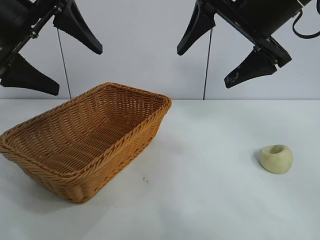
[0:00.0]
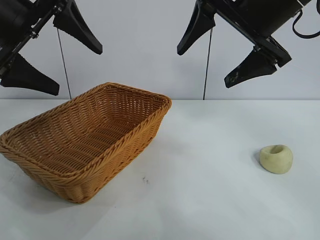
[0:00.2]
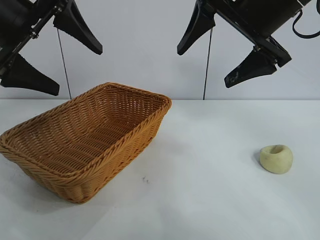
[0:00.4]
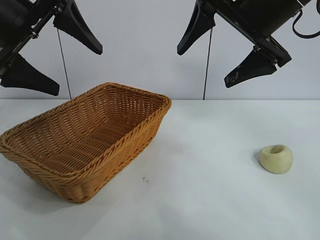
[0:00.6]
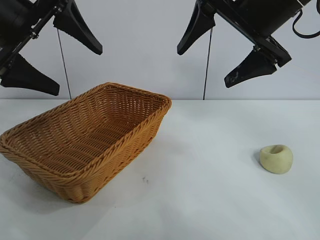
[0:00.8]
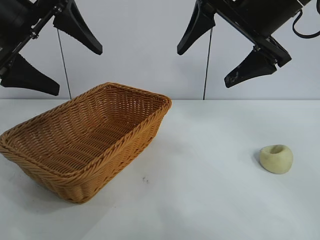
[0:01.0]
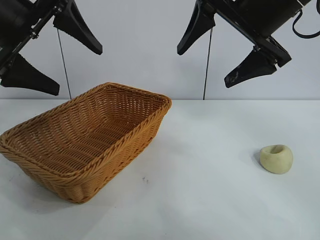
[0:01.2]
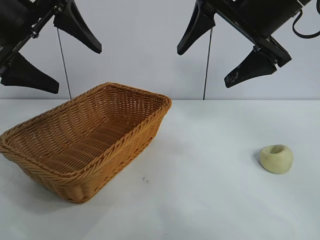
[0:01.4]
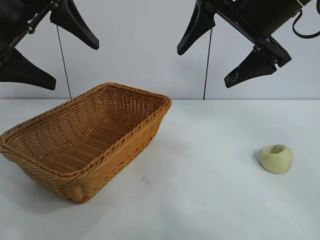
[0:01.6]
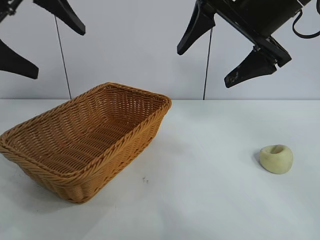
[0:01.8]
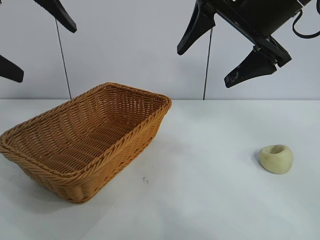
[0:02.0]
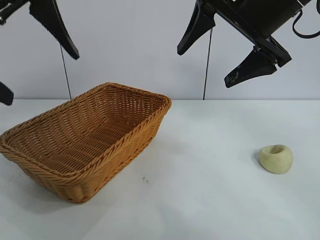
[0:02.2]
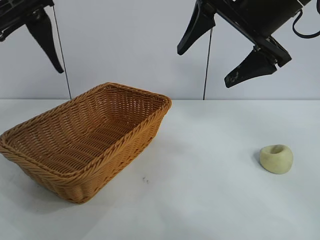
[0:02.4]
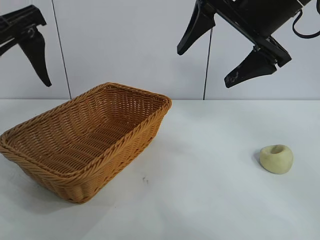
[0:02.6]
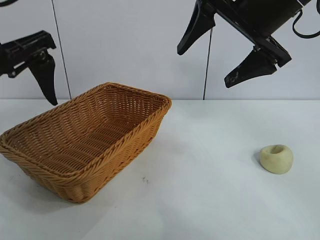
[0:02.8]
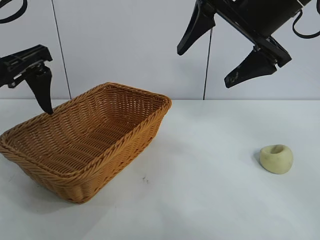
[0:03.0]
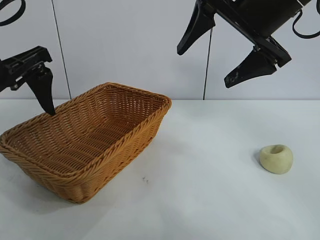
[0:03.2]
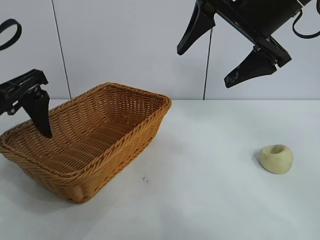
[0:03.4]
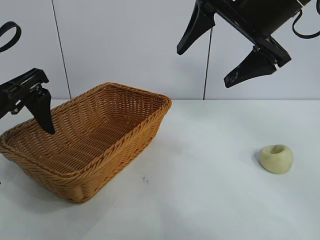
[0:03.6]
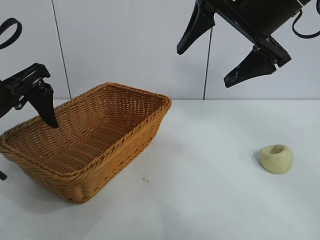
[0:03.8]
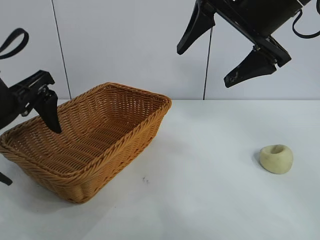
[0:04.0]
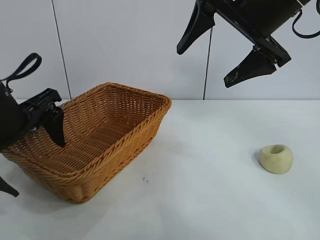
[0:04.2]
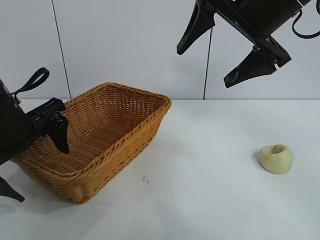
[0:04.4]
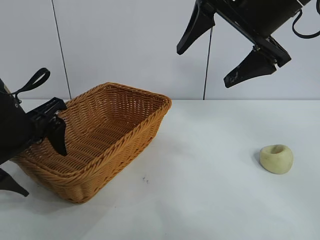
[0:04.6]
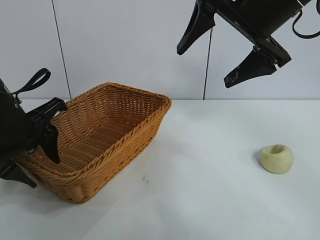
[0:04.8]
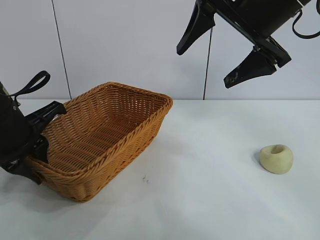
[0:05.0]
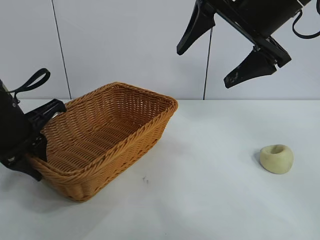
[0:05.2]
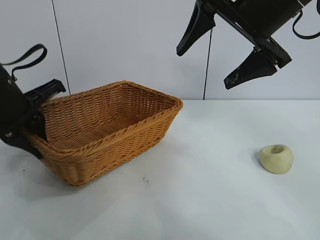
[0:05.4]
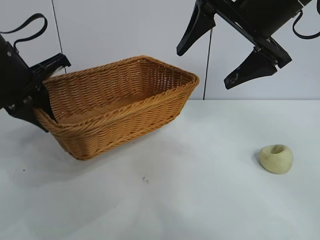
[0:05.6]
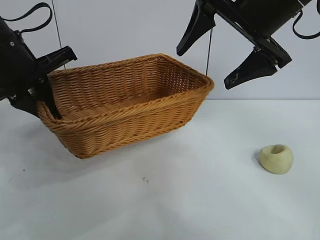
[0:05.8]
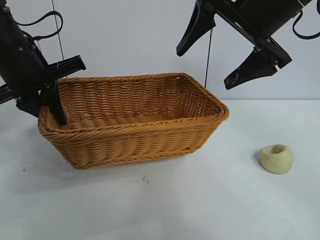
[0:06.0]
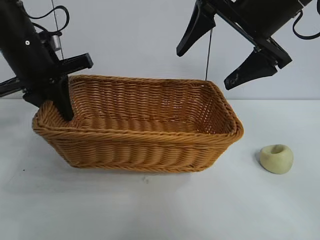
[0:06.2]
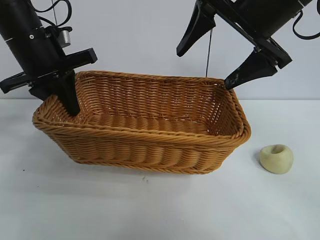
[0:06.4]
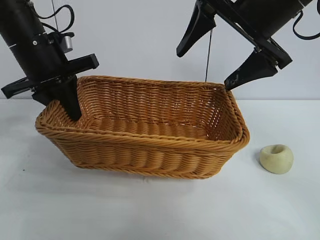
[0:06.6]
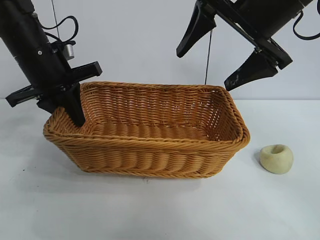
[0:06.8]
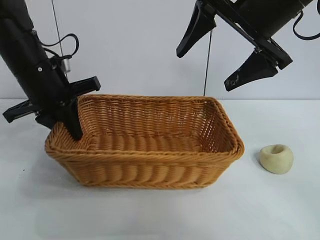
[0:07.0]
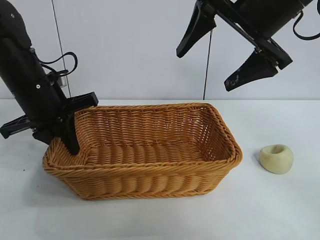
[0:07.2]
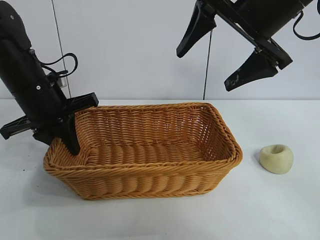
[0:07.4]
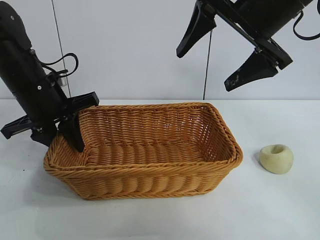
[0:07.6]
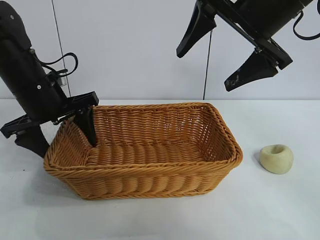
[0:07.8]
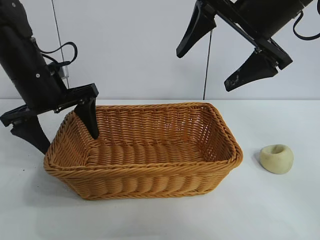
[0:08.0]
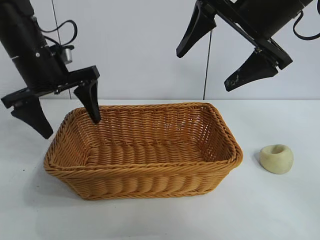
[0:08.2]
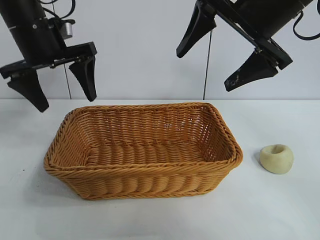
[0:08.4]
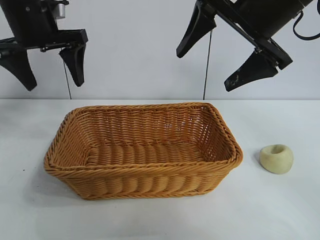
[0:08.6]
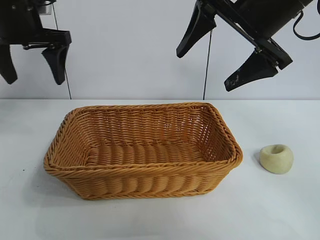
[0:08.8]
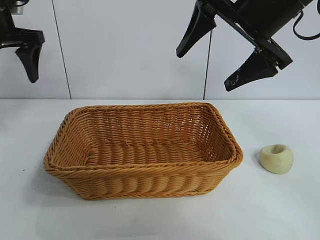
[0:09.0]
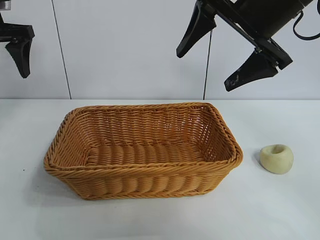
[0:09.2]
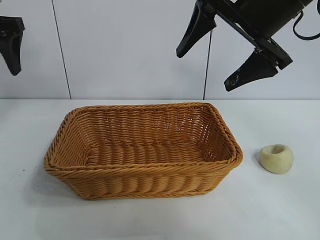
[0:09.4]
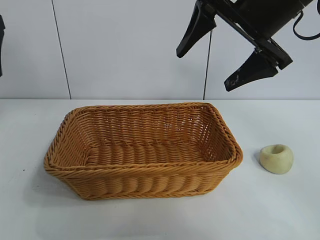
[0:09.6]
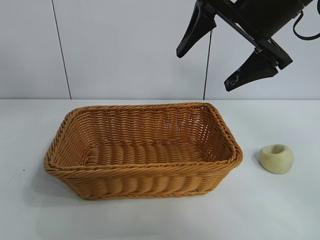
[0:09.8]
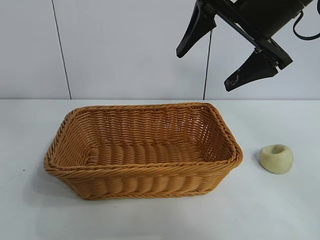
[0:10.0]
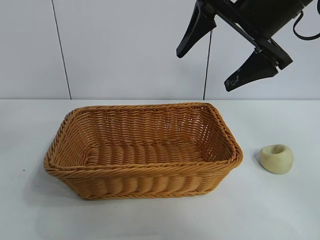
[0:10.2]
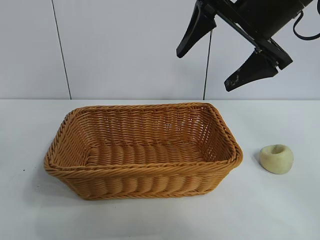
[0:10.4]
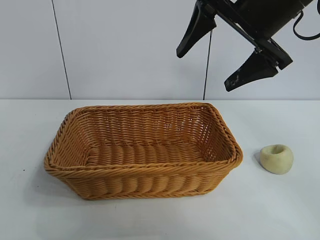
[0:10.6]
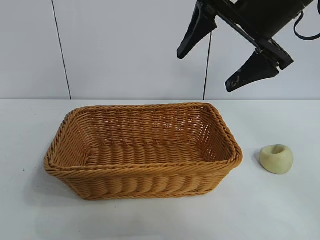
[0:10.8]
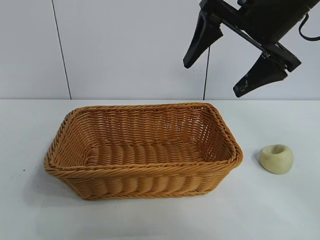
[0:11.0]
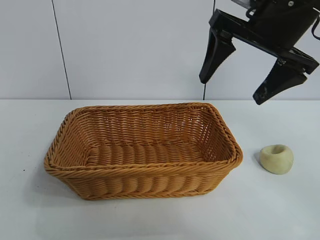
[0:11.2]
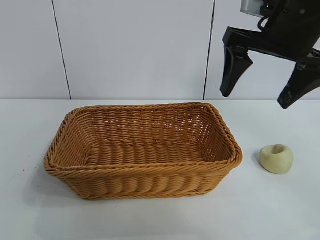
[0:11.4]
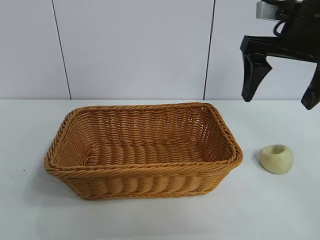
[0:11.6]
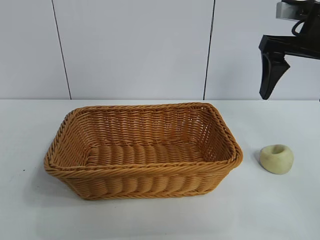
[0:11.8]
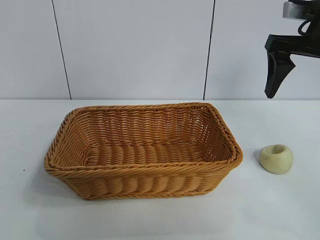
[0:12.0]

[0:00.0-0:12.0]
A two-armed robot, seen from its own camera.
Task of the whole recording: pick up the egg yolk pastry and put it into the basket.
Step, 0:01.6 to 0:05.0: Grasp the basket with left gripper.
Step, 0:05.2 to 0:07.6: Place the basket in the center of view with left gripper.

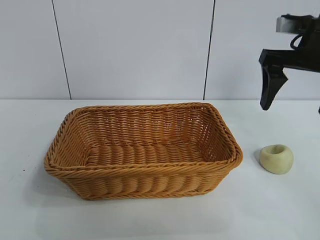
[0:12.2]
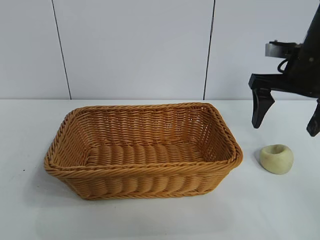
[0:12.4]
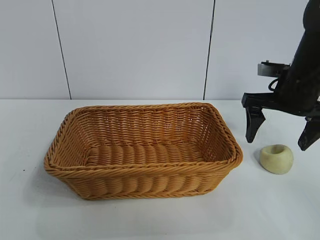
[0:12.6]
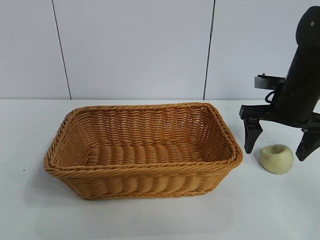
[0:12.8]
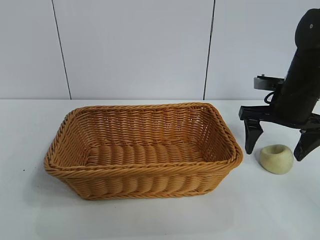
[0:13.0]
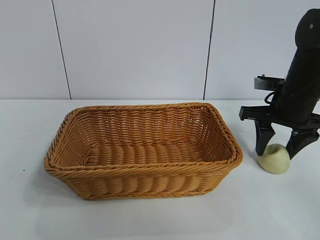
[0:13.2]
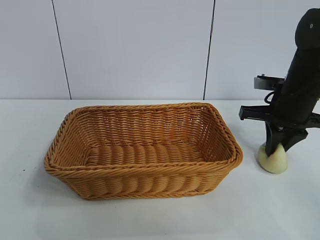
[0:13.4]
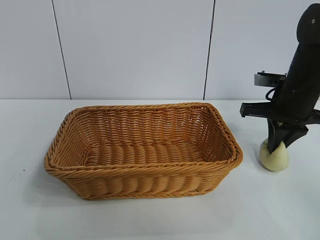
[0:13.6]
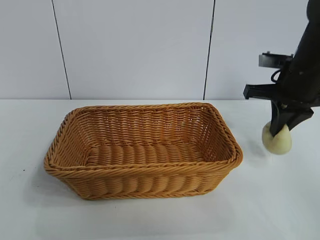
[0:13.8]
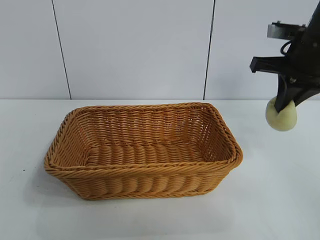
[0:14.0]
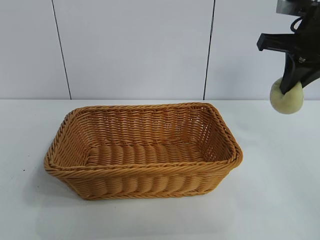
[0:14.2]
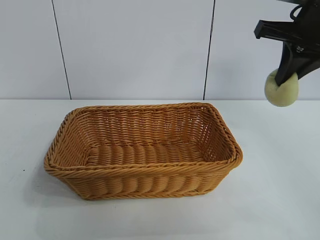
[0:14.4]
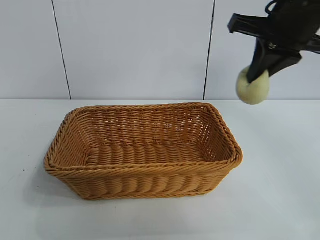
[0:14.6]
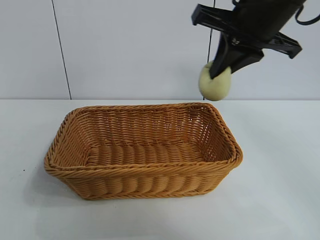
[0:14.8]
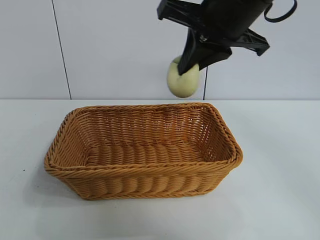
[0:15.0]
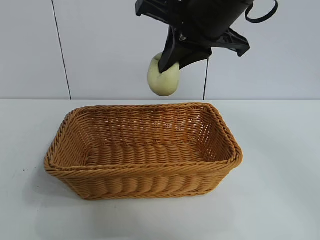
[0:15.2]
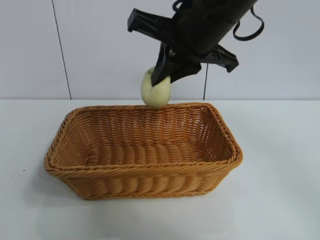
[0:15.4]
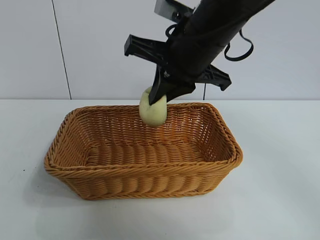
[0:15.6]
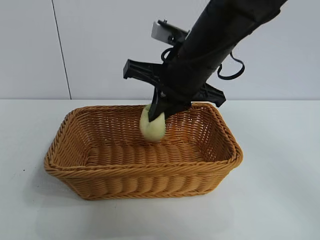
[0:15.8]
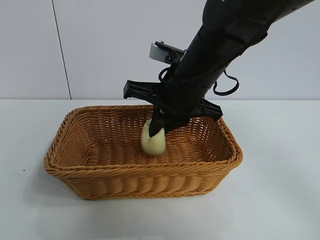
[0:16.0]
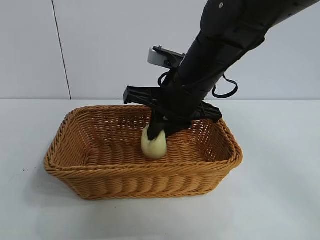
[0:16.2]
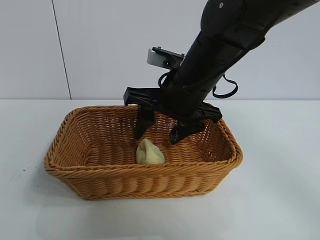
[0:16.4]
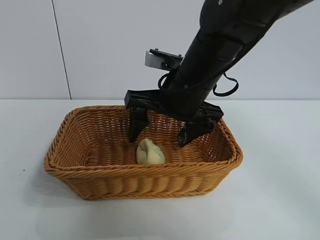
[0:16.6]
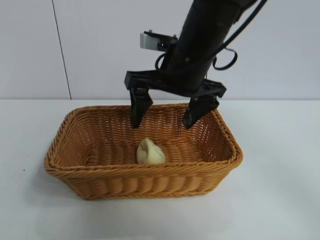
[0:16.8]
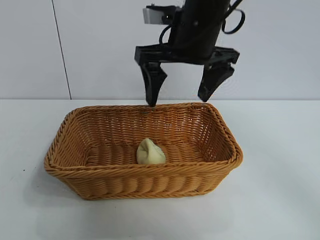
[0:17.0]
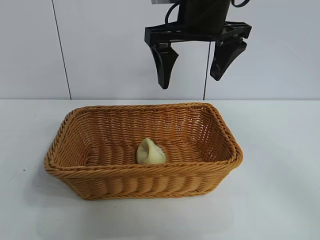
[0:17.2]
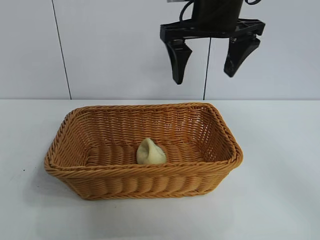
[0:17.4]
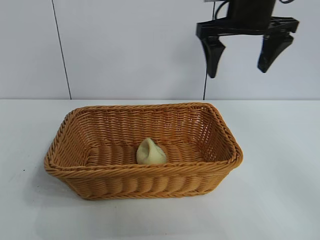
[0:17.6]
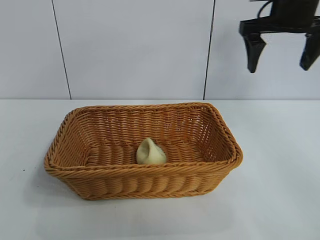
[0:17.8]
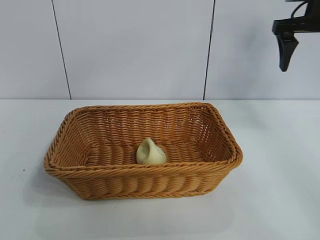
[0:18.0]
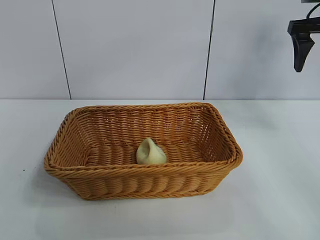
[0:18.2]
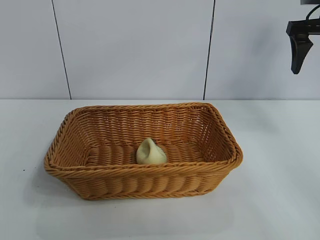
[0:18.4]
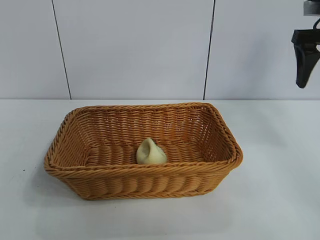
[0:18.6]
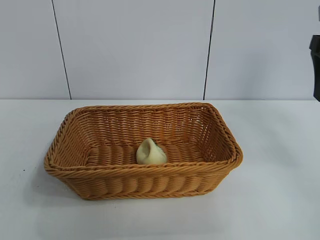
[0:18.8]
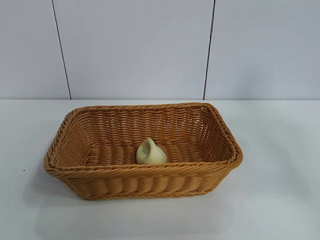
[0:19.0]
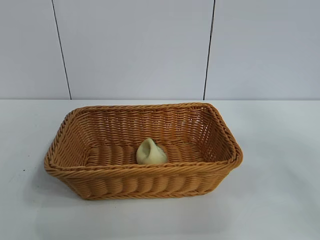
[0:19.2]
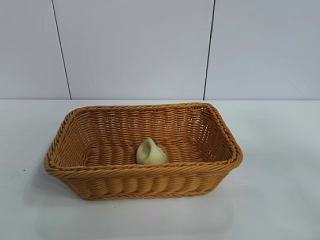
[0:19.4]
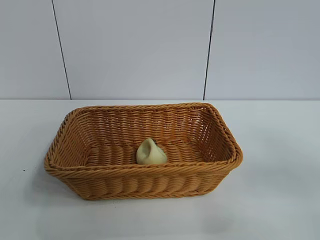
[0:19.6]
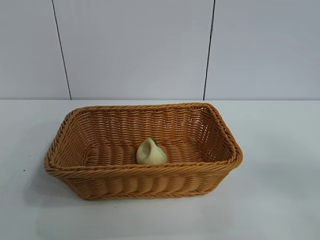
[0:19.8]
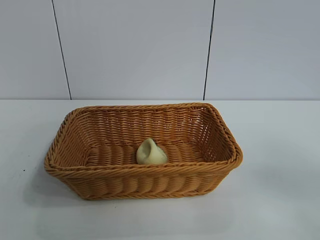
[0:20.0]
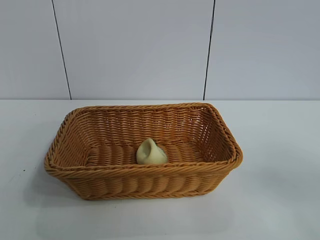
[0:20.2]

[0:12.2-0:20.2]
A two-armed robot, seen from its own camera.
Task of the whole recording: pick up the egg yolk pastry and put it into the basket.
Step, 0:13.6 to 0:16.2: Place the egg yolk pastry in the basket with right gripper.
